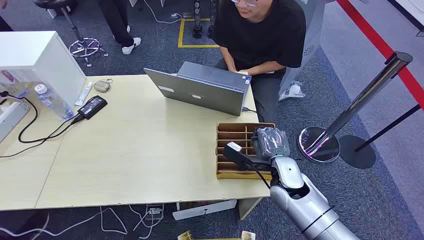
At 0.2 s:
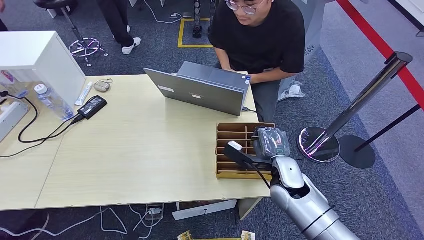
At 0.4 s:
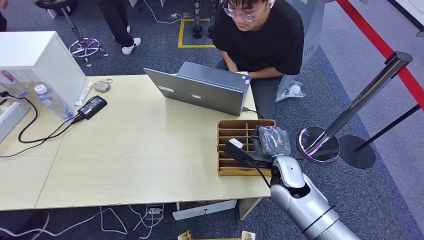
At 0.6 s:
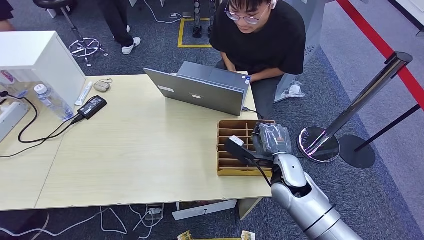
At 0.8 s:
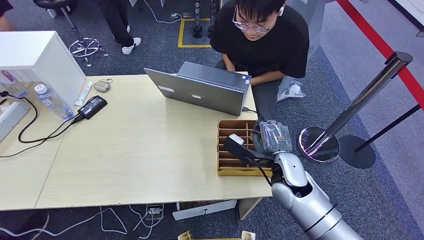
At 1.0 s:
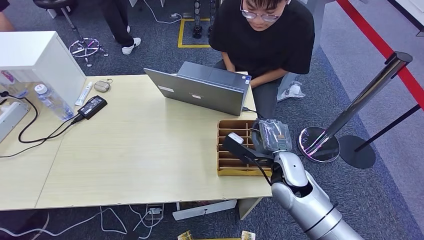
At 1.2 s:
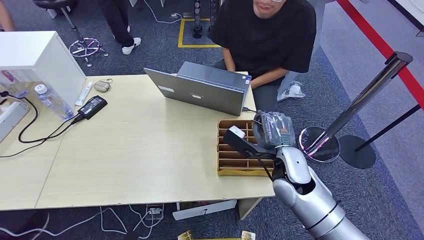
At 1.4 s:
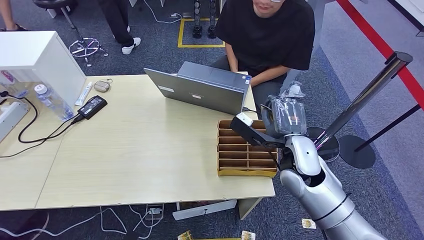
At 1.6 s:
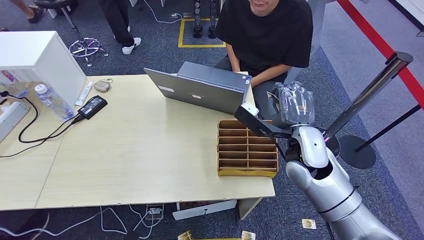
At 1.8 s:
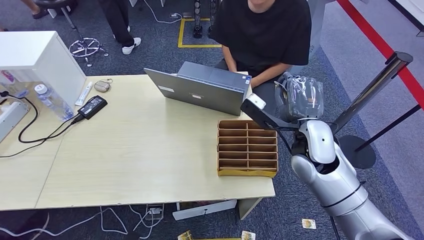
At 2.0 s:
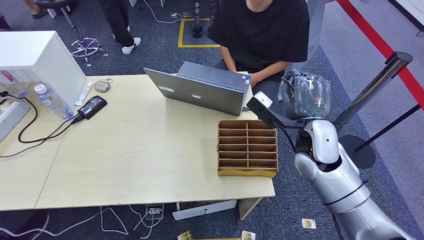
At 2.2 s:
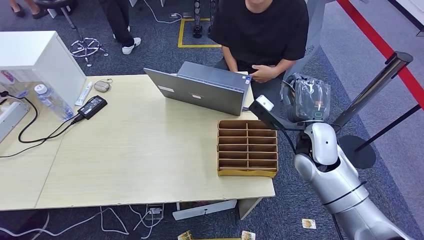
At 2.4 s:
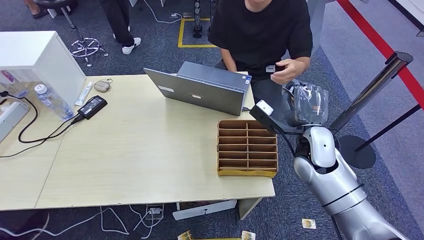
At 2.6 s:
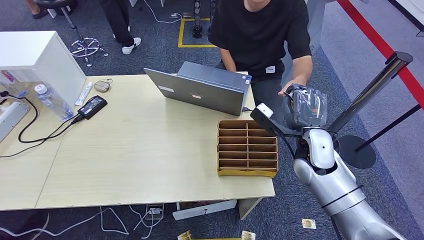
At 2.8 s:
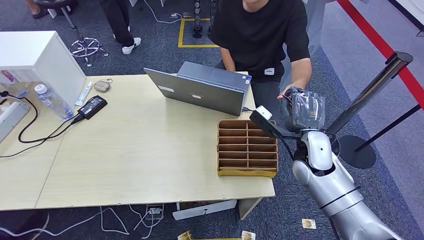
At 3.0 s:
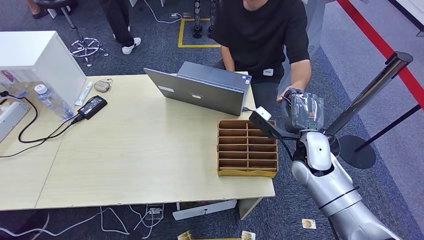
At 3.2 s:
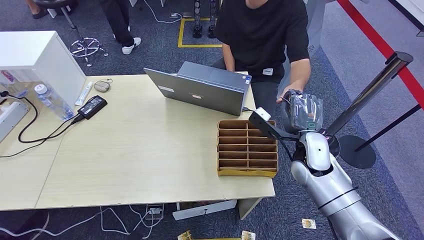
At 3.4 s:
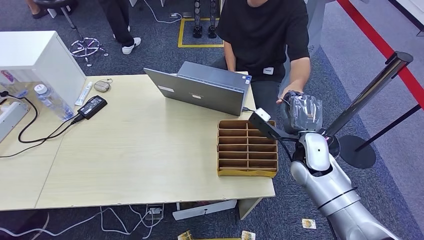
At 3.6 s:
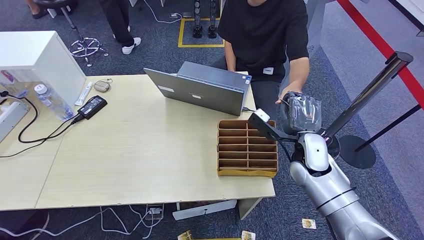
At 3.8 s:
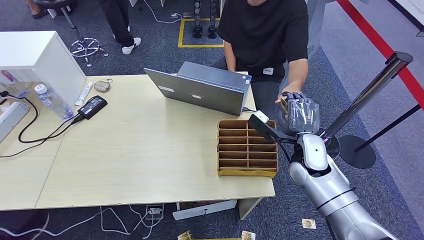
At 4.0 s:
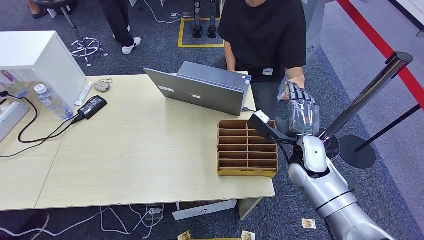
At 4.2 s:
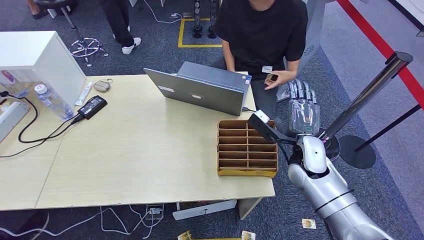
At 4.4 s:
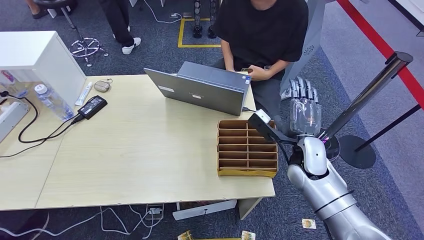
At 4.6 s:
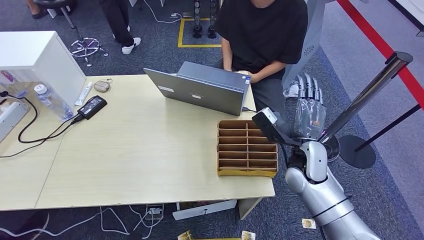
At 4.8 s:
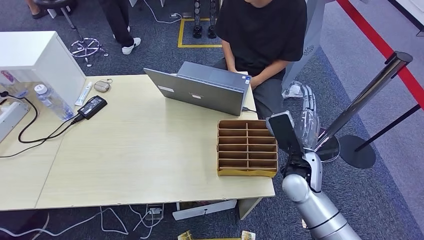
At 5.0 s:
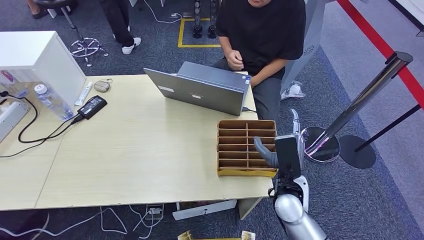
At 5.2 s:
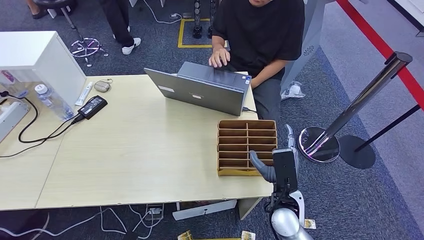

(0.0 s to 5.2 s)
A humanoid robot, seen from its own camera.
Step, 0.0 s - 1.8 s: Pick up the key card from the card box.
Step, 2.0 s - 5.2 s: Hand the key card to the target.
1.8 s - 3.4 s: The right hand heads downward, covering approximately 5 cm.
3.4 s - 5.2 s: The right hand heads backward, downward and to the left, covering some 15 cm.

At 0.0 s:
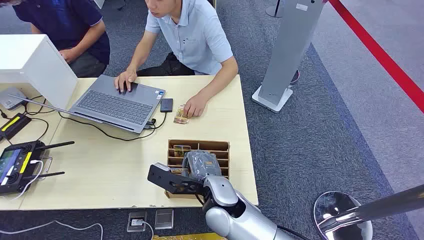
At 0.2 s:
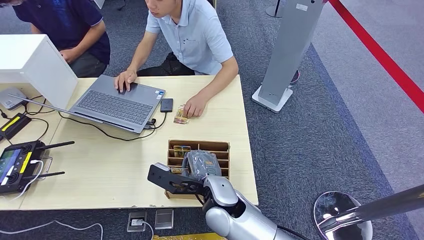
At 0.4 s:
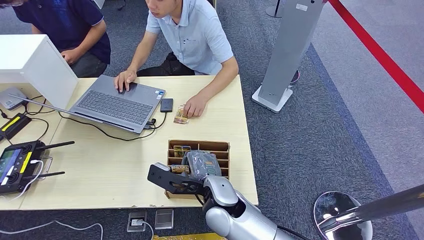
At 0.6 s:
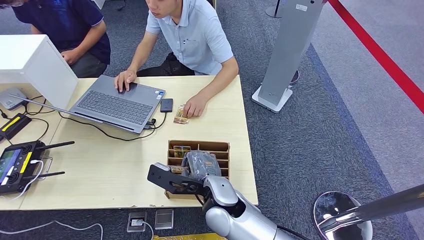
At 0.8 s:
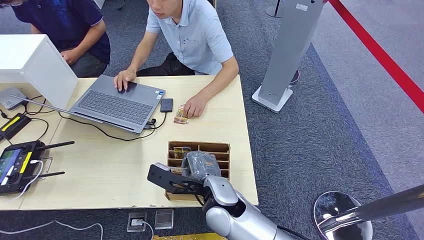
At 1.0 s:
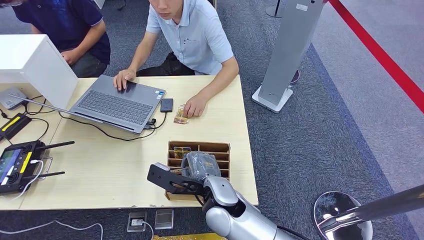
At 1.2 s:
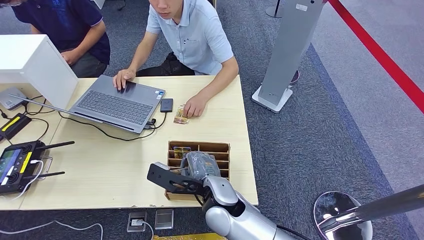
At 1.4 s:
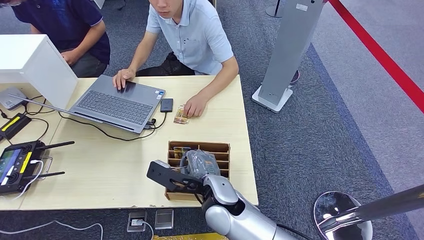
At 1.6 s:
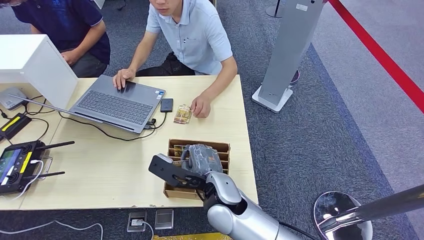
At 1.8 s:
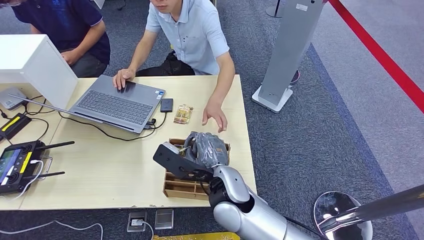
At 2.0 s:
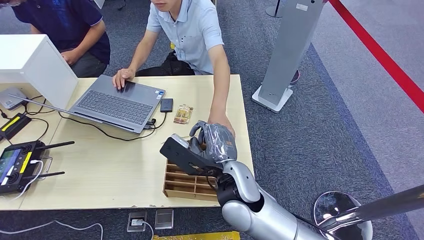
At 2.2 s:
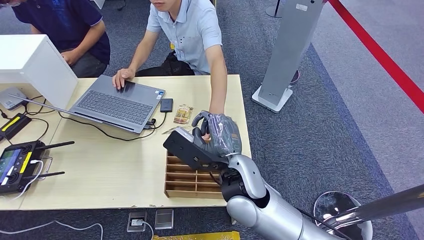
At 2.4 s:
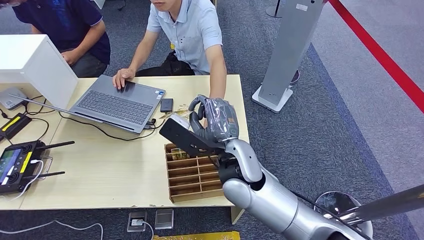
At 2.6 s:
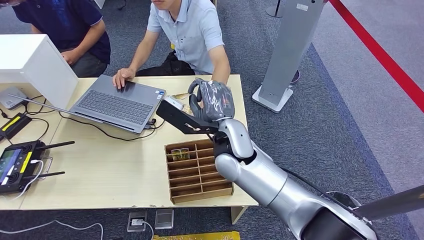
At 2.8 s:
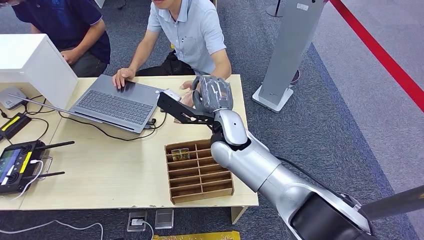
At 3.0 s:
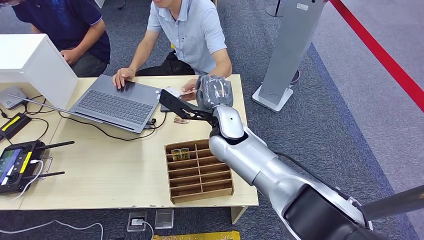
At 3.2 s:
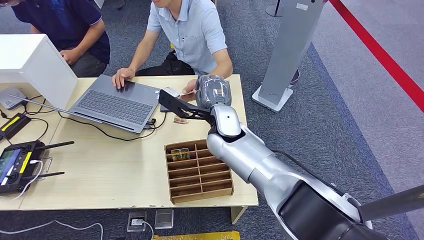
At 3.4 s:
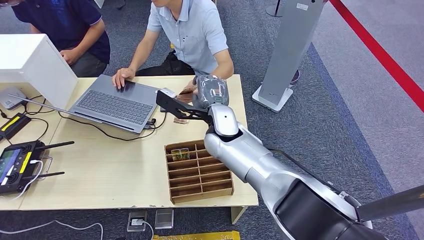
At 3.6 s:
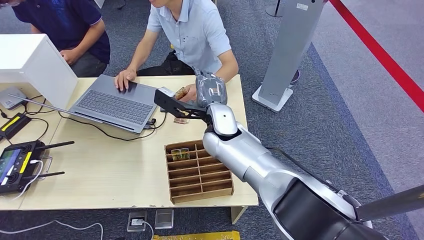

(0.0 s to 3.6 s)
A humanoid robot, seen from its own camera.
Step, 0.0 s - 1.8 s: Pick up the key card from the card box.
Step, 2.4 s - 3.6 s: Hand the key card to the target.
1.8 s - 3.6 s: The right hand shifts approximately 15 cm forward.

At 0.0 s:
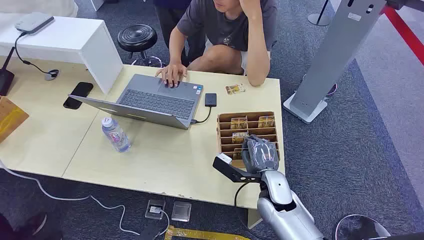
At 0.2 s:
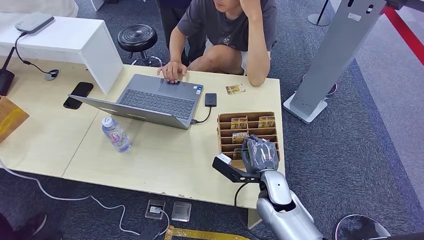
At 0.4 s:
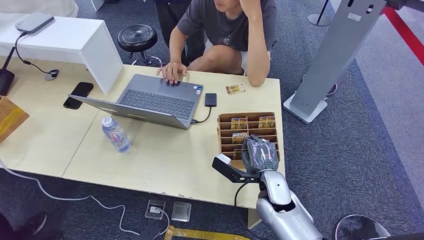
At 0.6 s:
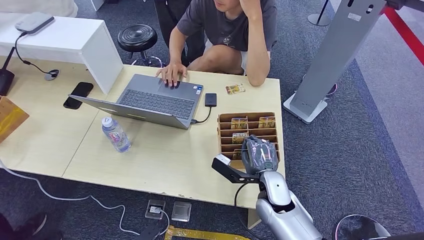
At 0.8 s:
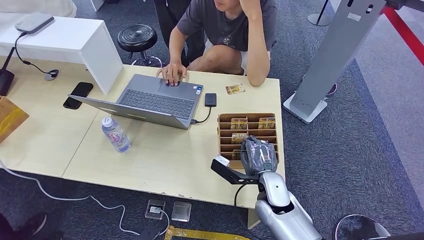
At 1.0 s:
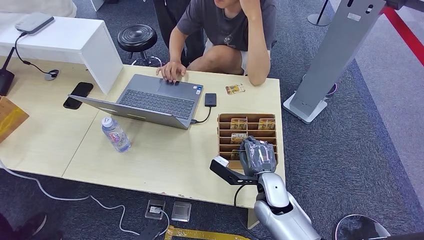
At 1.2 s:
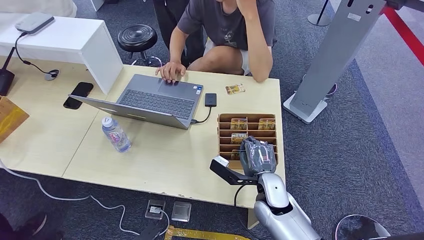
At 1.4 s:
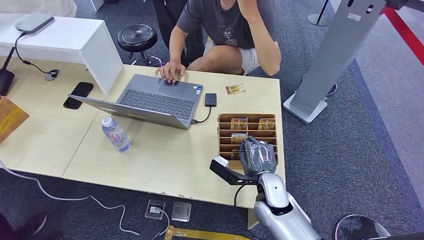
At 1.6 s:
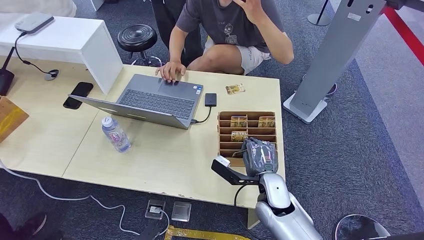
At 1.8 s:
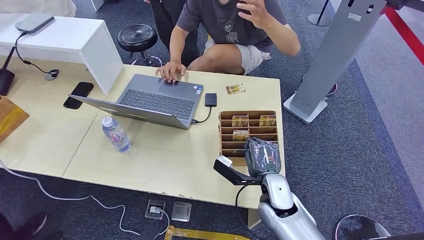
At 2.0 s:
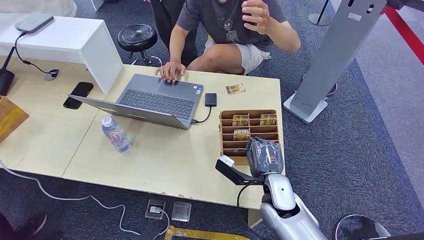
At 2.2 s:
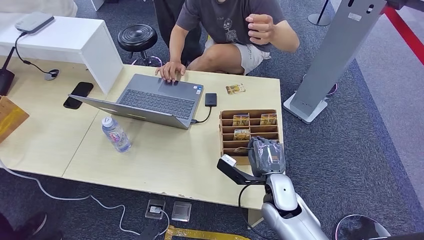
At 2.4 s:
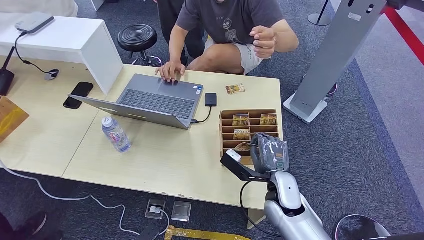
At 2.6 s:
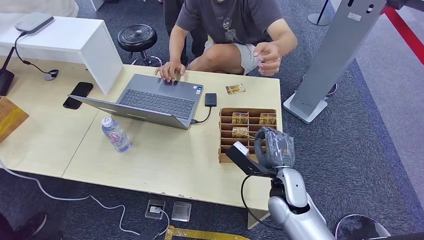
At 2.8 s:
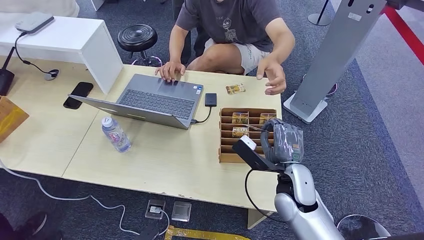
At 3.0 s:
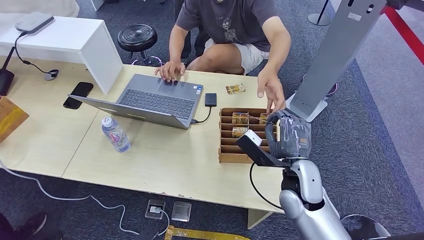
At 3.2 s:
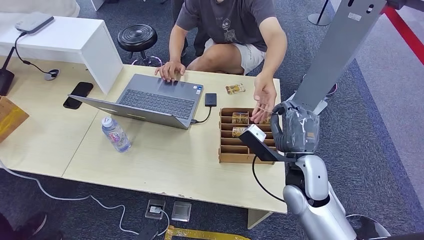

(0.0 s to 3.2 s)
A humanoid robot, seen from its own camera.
Step, 0.0 s - 2.2 s: Pick up the key card from the card box.
Step, 2.6 s - 3.2 s: Hand the key card to the target.
1.6 s - 3.2 s: The right hand goes approximately 10 cm upward.
